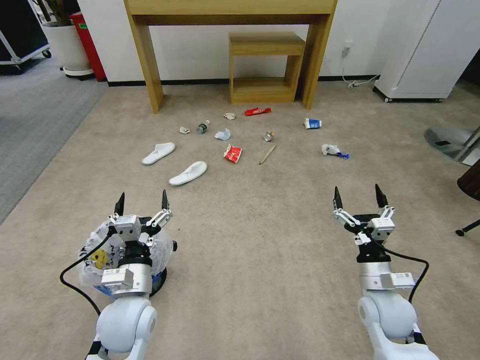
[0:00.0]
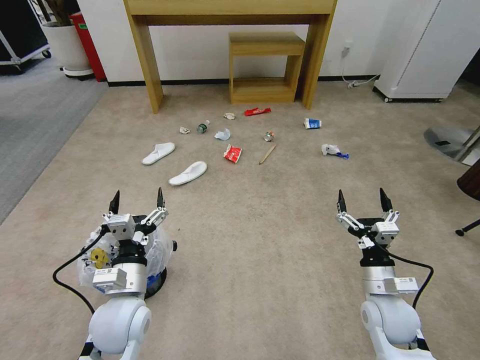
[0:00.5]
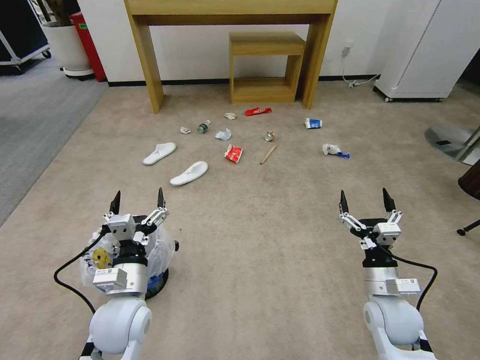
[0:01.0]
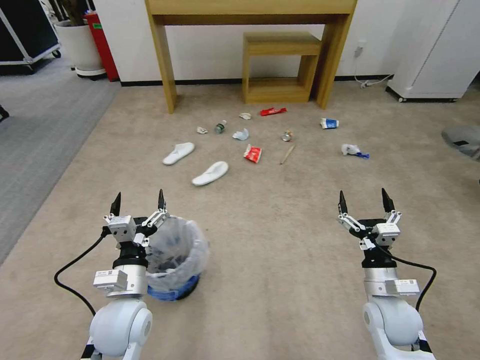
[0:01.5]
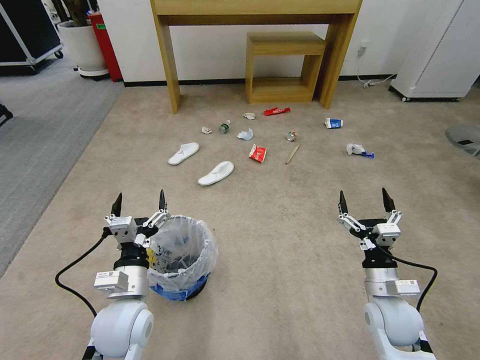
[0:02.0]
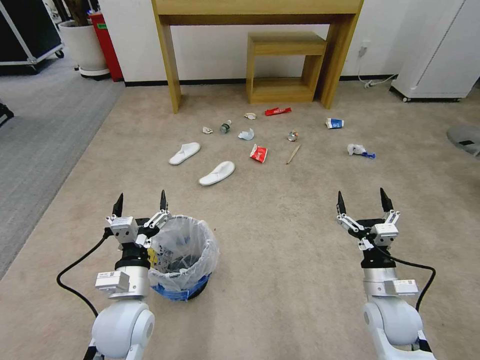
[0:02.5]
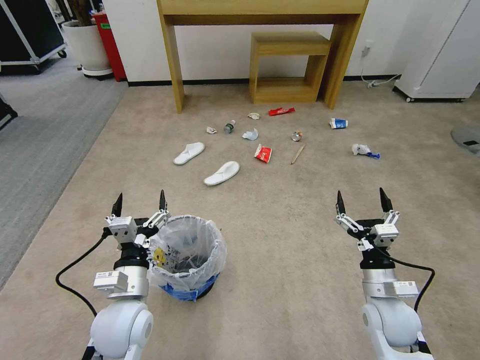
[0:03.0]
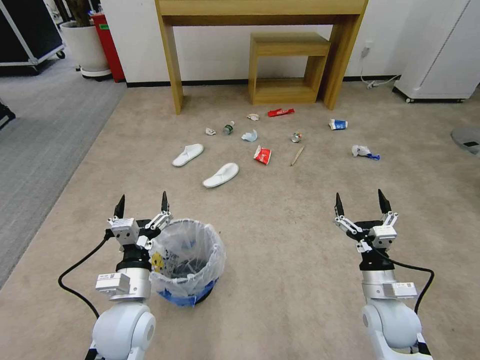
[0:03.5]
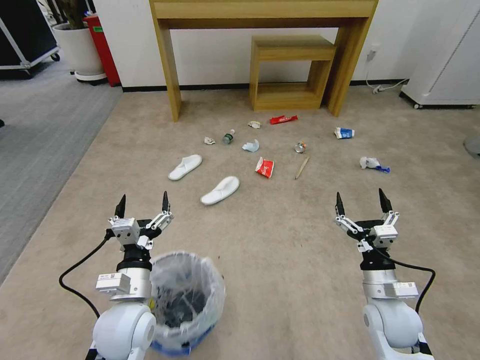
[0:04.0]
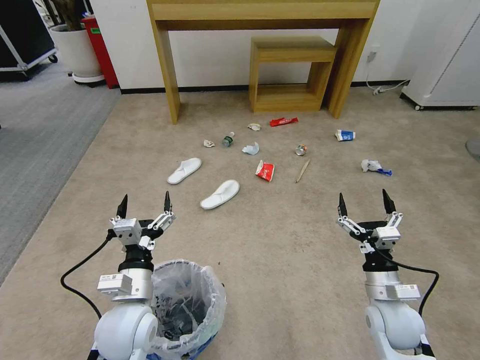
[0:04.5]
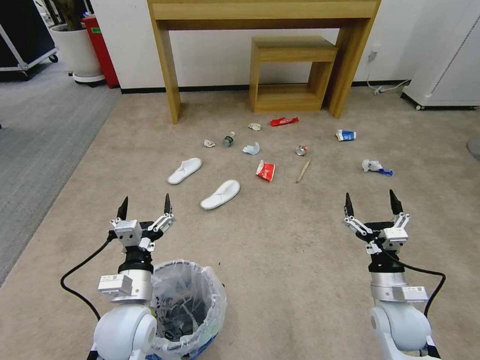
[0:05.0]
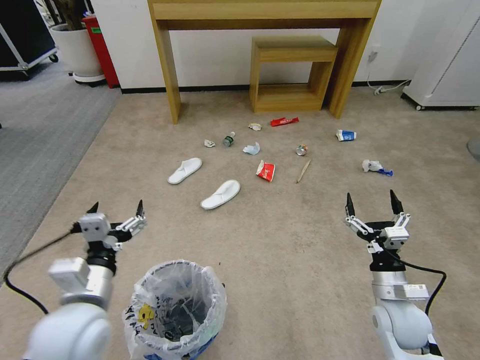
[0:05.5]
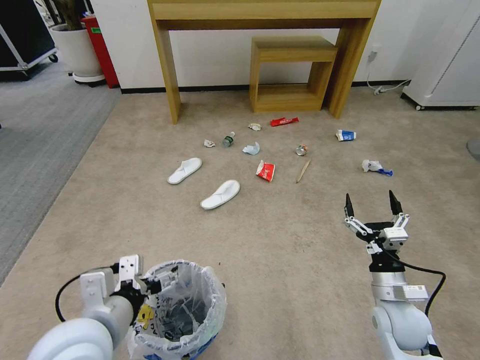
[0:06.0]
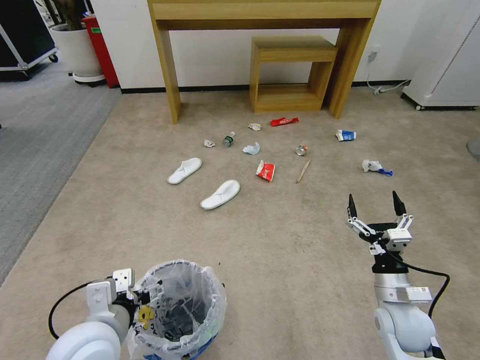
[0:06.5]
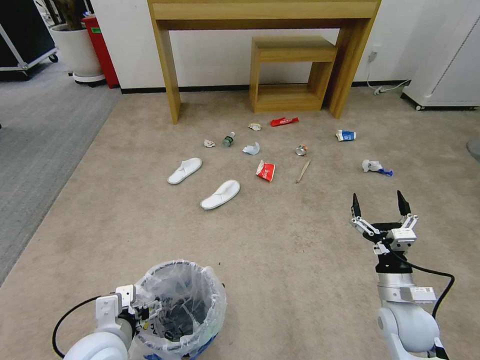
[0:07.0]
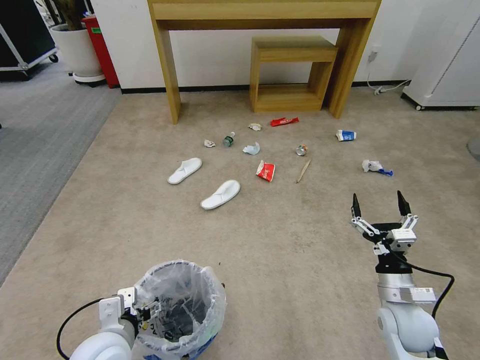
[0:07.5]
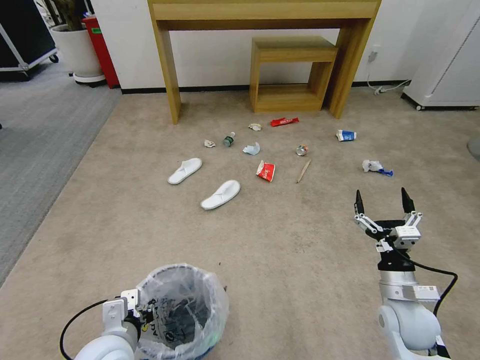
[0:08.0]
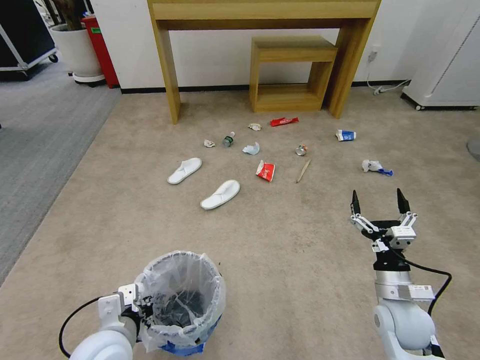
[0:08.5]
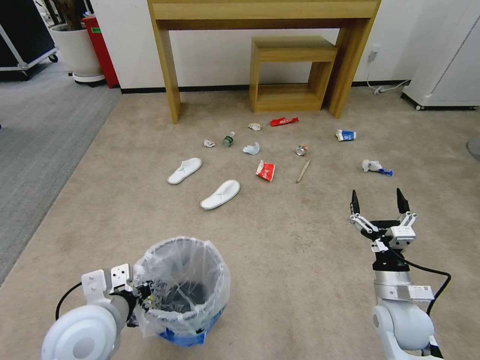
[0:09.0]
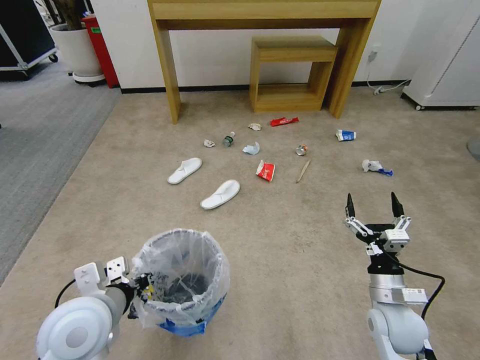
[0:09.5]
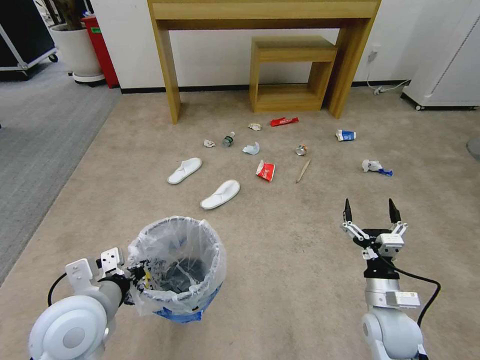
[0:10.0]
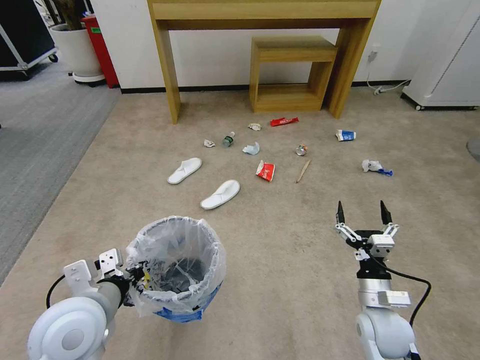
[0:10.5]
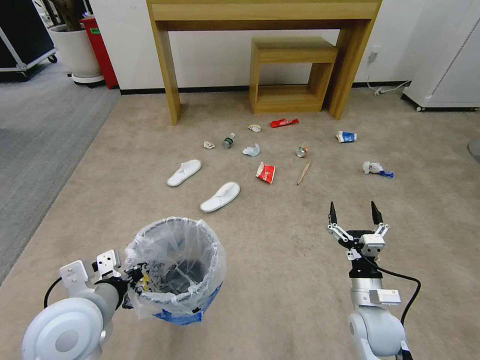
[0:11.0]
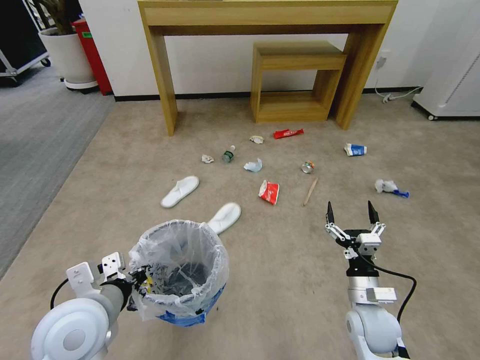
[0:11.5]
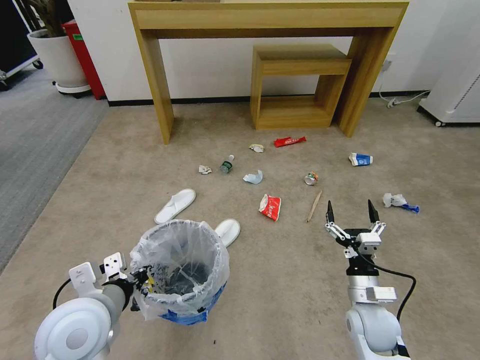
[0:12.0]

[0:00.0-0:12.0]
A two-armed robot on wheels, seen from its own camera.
Task of the whole recording: Pick up the trash bin and place the garbage on the floor into it.
0:04.0 to 0:06.0: The left gripper travels upward and backward by approximately 10 cm.
0:06.0 to 0:08.0: The left gripper is displaced downward by approximately 15 cm, and closes.
0:08.0 to 0:10.0: The left gripper is displaced upward by about 10 cm.

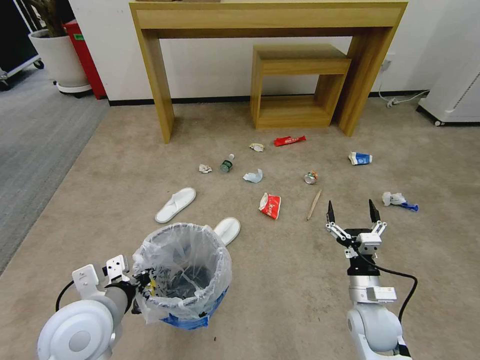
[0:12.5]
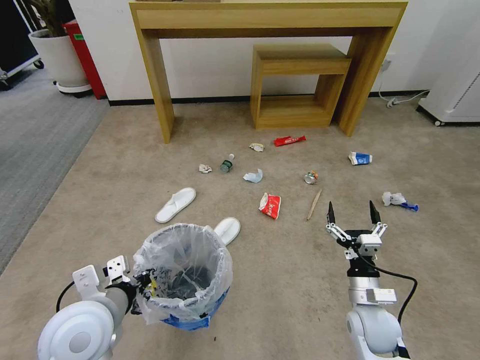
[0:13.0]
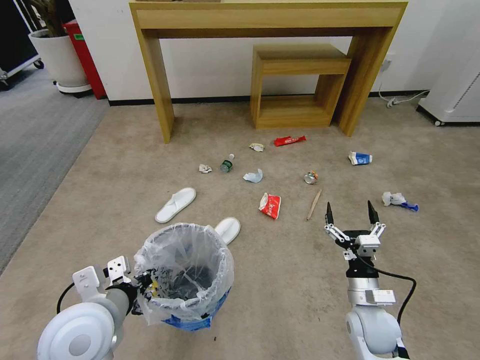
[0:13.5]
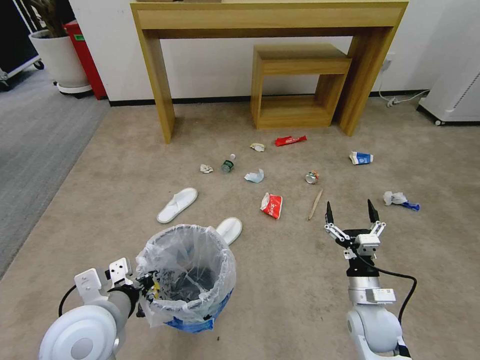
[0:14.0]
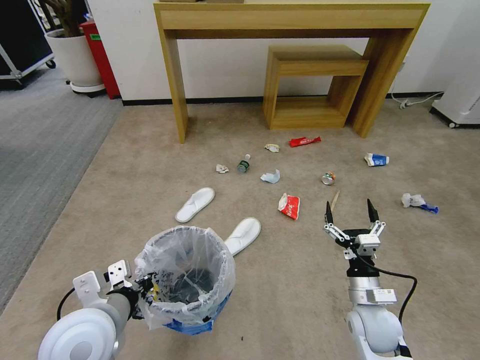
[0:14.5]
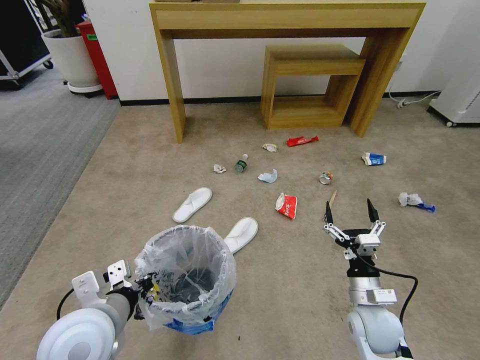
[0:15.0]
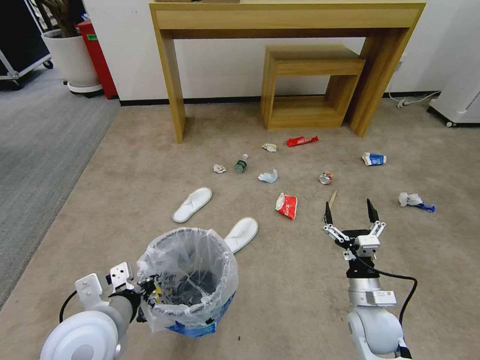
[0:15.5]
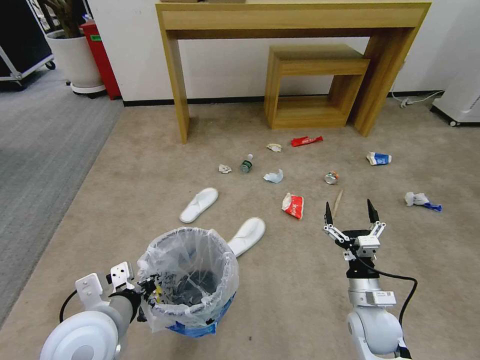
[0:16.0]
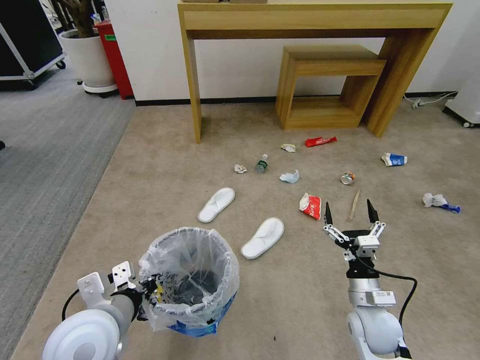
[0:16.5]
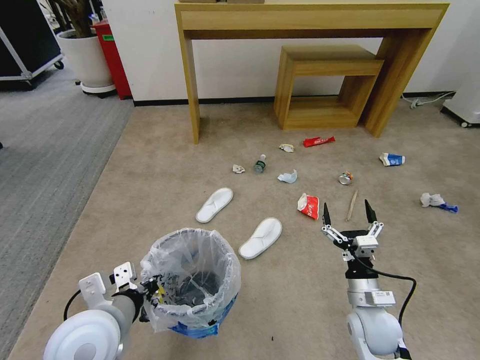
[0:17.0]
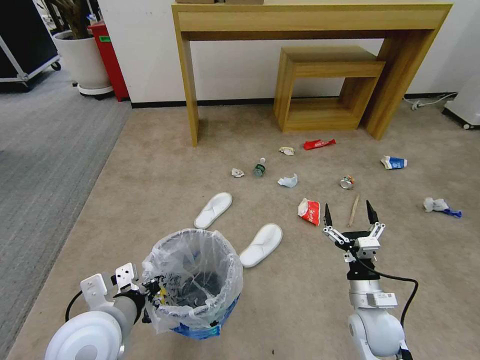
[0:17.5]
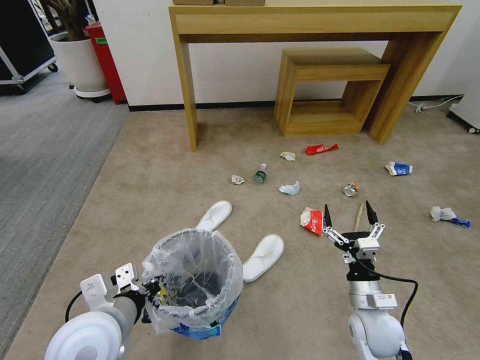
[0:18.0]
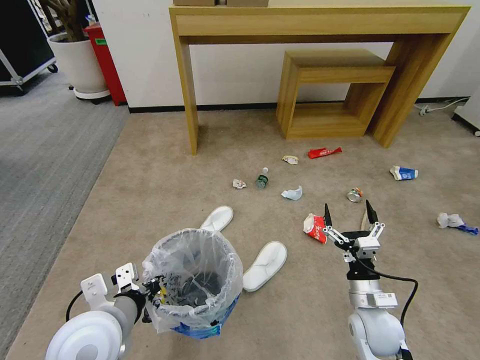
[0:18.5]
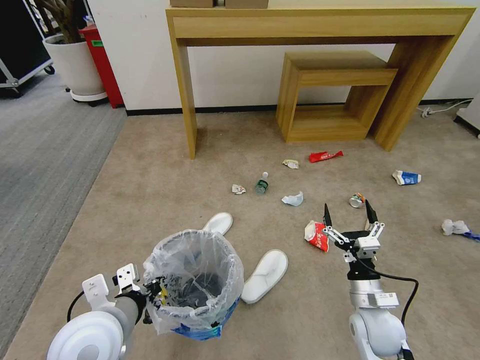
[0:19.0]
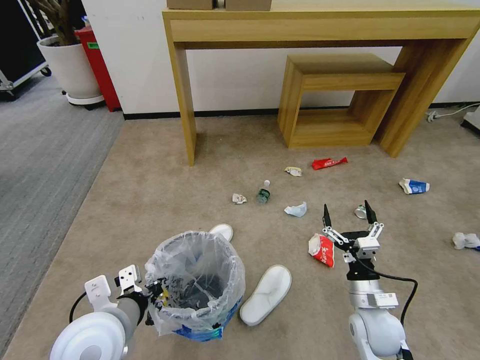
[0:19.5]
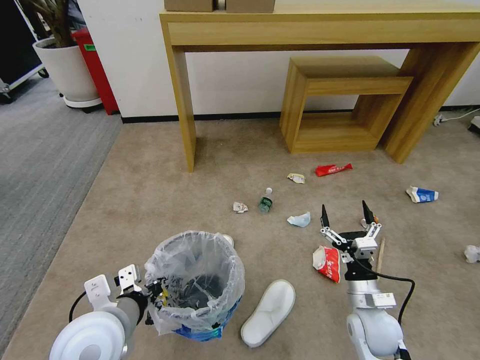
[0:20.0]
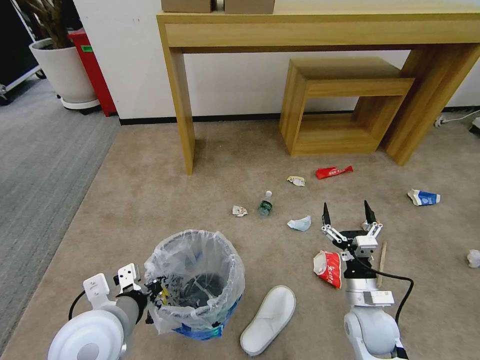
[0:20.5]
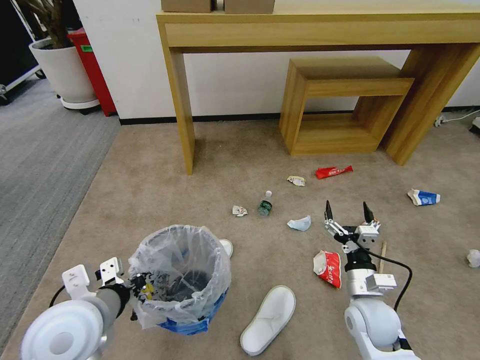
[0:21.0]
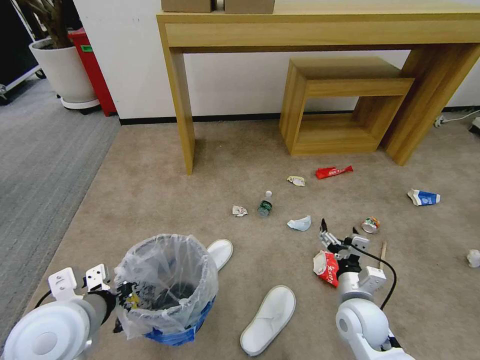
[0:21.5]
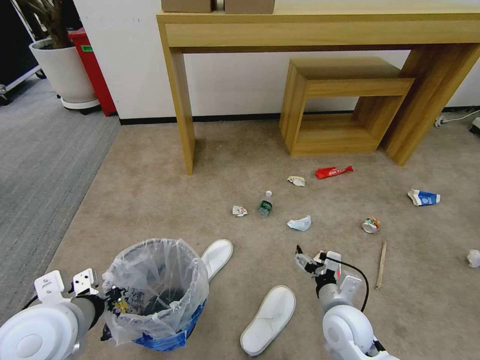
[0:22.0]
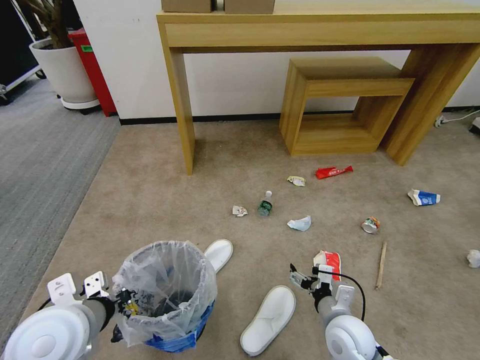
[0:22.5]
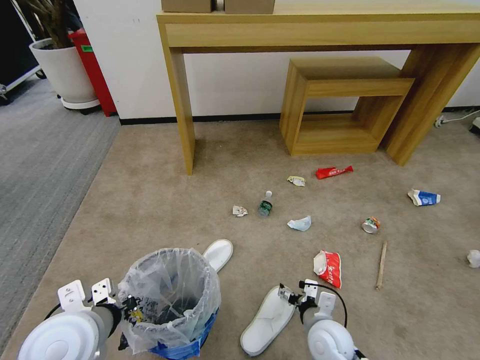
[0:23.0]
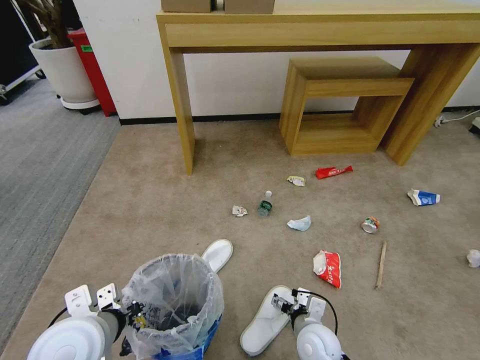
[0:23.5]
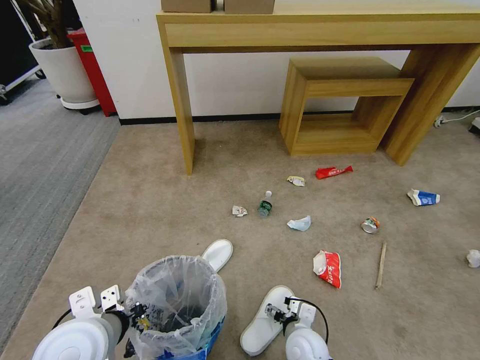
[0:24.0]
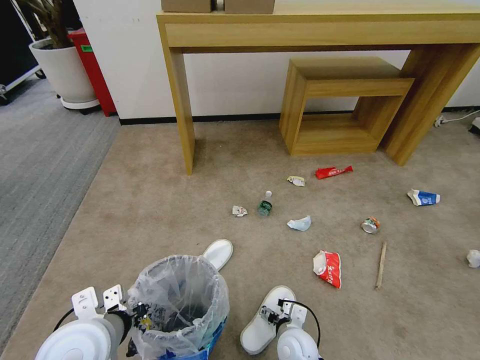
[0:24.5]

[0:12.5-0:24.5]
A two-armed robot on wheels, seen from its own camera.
Task of the whole recording: Pick up the trash bin and place the garbage on the floor into it.
0:14.5 to 0:16.5: Neither gripper changes place.
0:20.5 to 0:22.5: The right gripper ends up some 5 cm from where it was, while the left gripper shifts by approximately 5 cm.
0:22.5 to 0:24.5: The right gripper shifts roughly 15 cm to the left and downward.

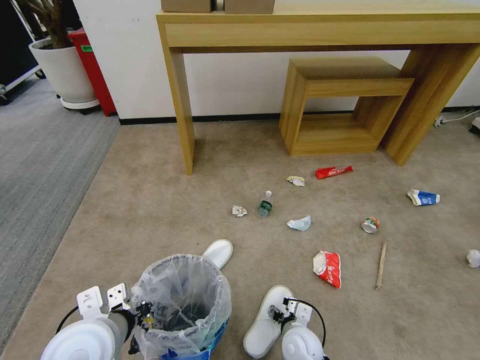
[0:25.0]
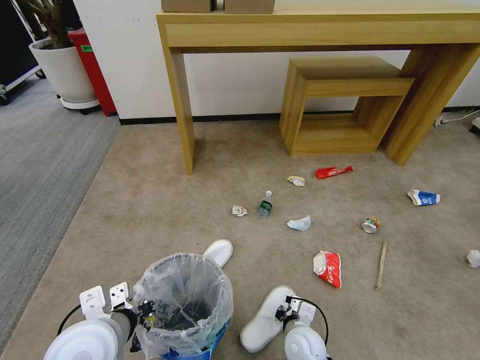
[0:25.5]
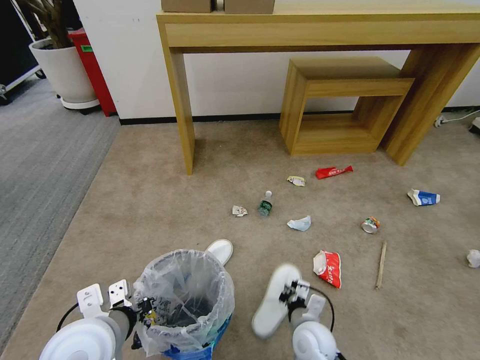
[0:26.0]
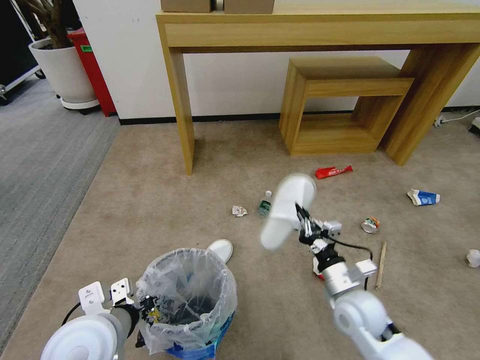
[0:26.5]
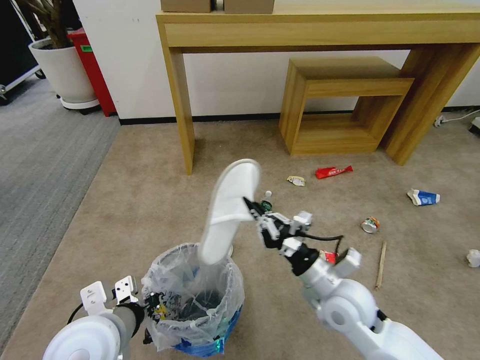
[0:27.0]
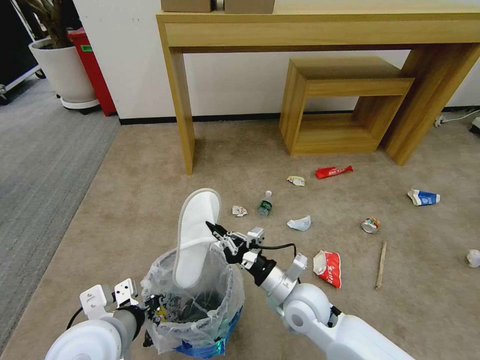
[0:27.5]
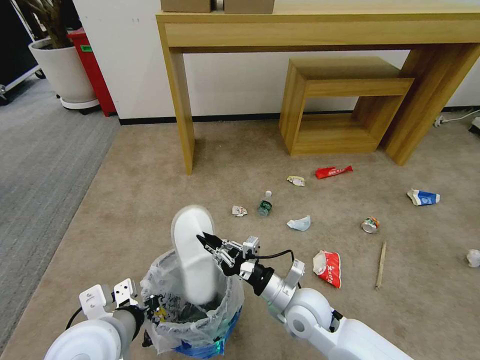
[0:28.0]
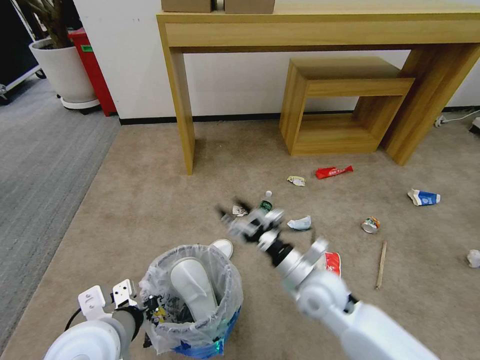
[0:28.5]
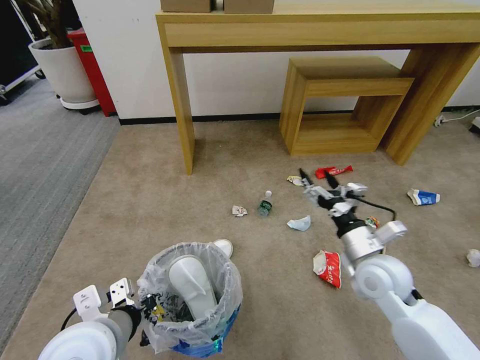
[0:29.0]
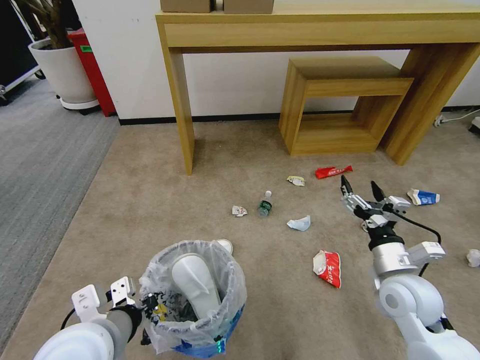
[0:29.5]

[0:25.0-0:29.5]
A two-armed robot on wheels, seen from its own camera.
Task of the whole recording: Pick up the trash bin and place the garbage on the floor into it.
0:25.0 to 0:27.0: The right gripper goes approximately 20 cm upward, and closes up.
0:27.0 to 0:29.5: The right gripper travels to the right by some 10 cm, and opens its fingers.
